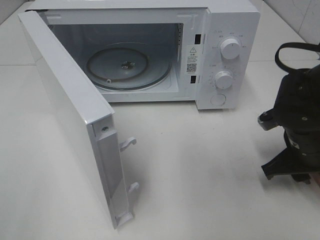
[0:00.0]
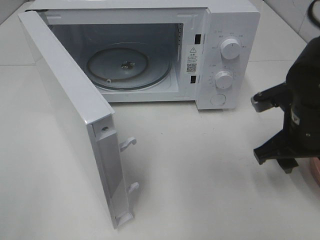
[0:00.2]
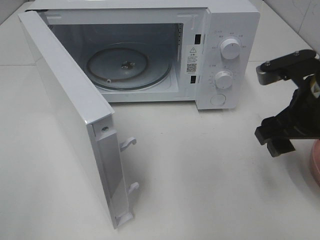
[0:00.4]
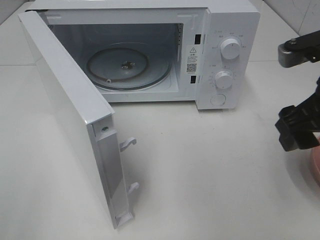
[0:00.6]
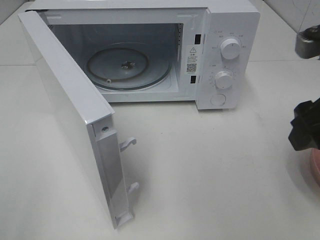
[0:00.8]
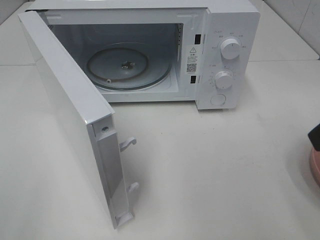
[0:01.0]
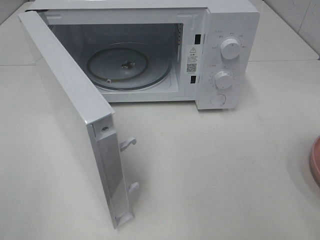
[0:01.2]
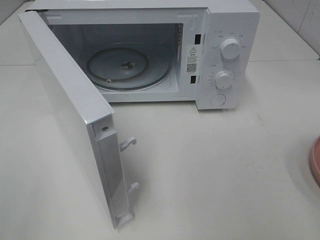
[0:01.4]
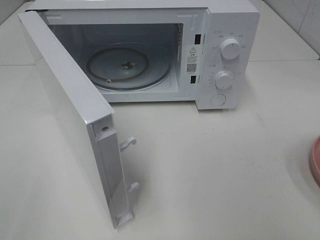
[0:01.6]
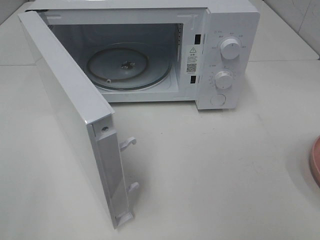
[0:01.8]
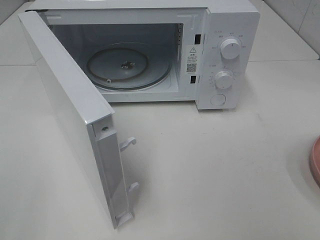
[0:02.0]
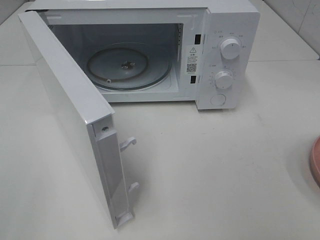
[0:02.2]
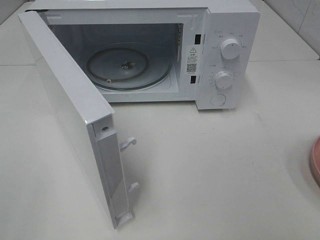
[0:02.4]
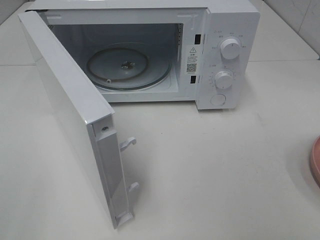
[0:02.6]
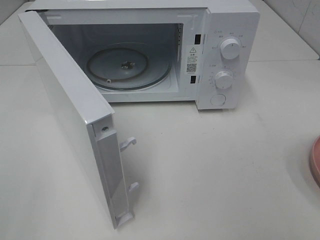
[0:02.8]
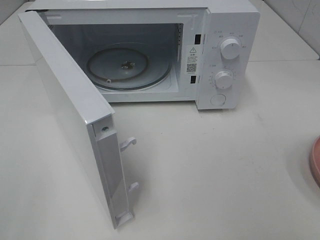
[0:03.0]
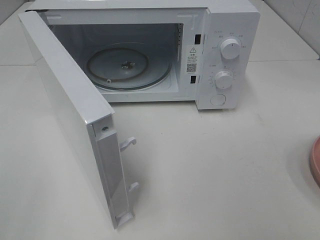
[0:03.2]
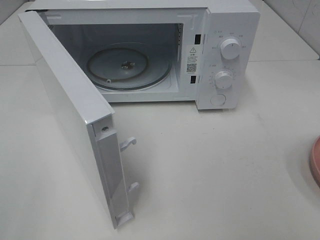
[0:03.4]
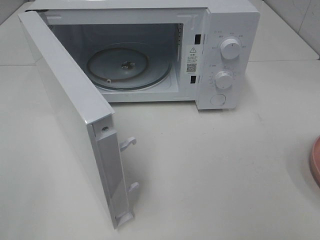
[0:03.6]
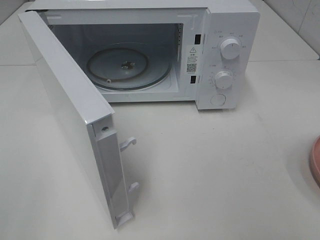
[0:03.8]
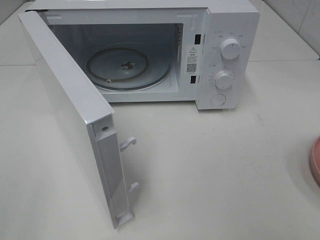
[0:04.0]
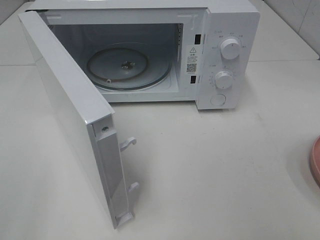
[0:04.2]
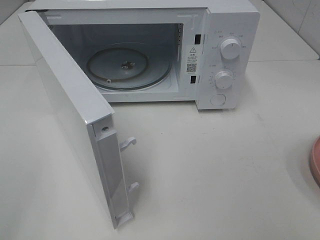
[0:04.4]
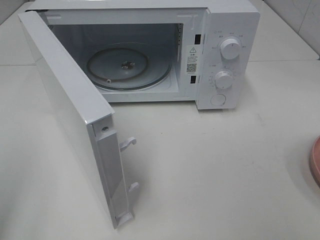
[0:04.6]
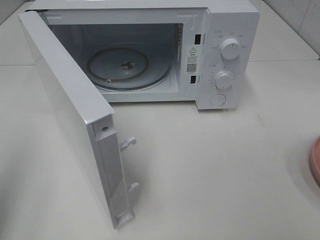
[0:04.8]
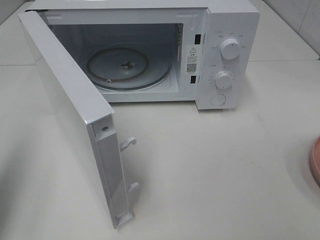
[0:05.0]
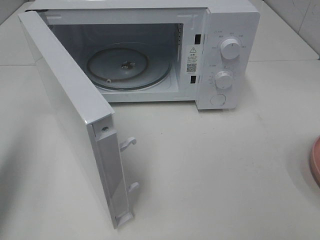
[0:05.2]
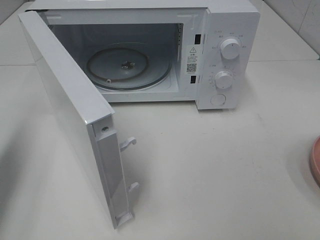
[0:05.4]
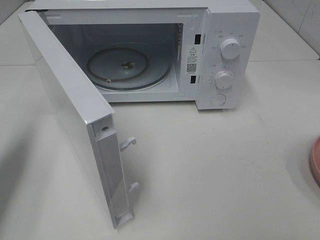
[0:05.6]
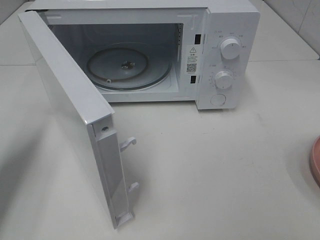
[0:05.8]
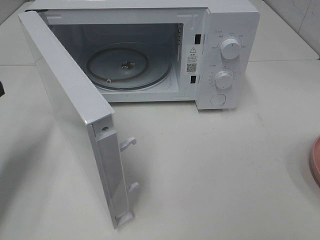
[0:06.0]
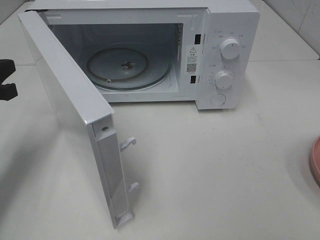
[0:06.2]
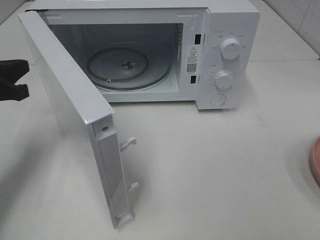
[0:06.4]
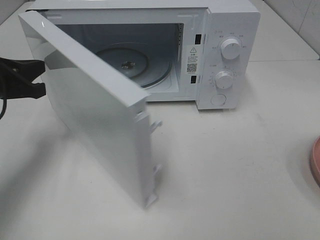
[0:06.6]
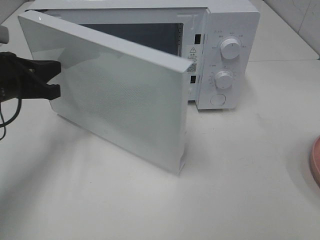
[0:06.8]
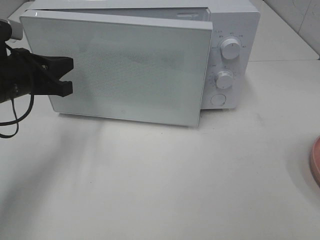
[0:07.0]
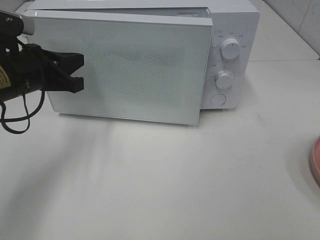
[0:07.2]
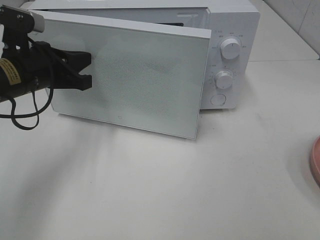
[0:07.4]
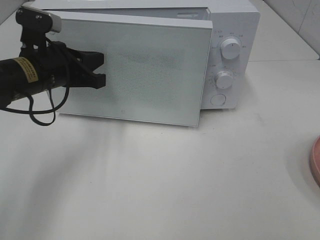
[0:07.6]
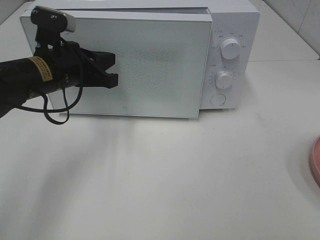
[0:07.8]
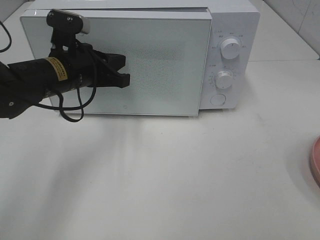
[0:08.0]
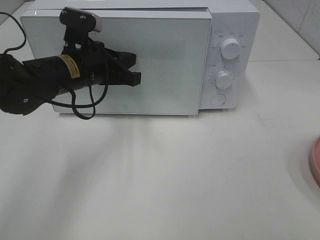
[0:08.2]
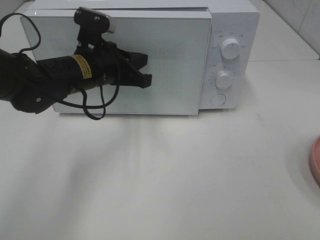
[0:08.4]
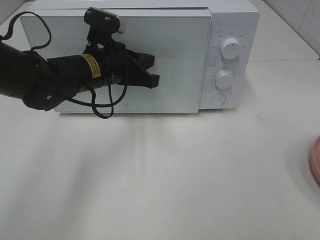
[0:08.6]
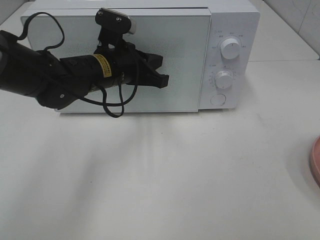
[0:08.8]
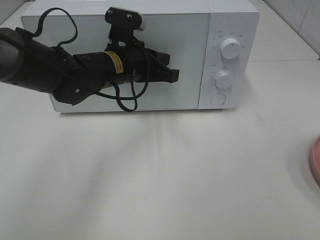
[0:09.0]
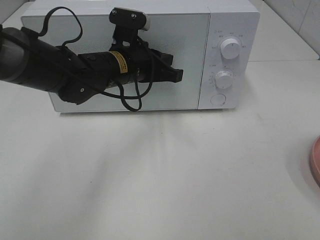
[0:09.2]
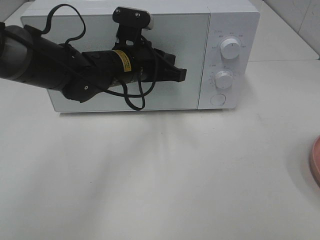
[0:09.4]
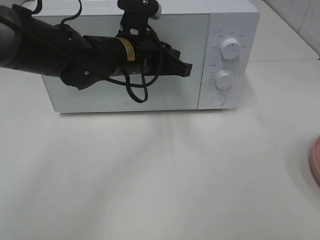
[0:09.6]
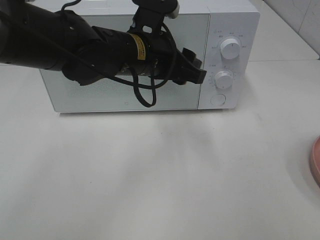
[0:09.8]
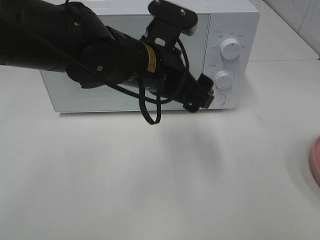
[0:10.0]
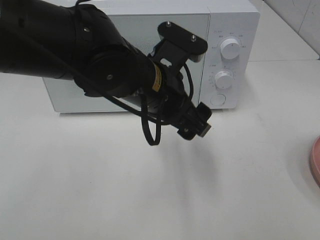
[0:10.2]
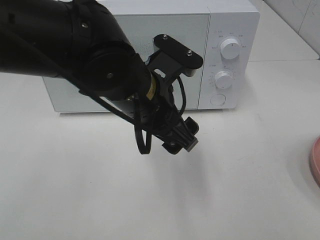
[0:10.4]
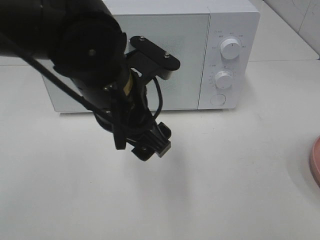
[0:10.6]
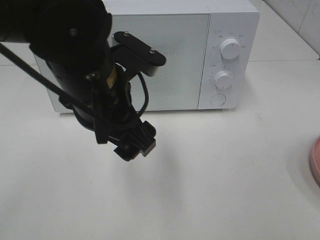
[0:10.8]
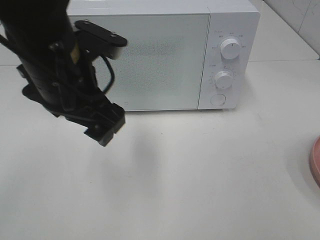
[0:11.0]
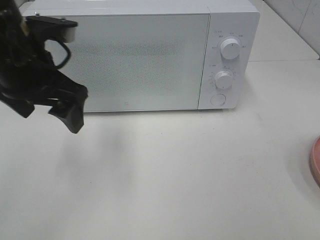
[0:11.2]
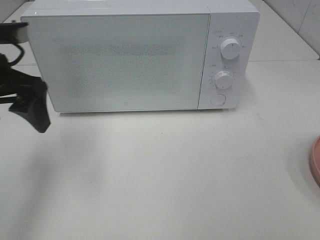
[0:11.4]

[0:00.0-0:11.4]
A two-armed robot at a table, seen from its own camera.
Task of the whole recording: Heat the burger.
Step, 0:00.2 to 0:09.6: Left hand: close the microwave door.
0:00.0 to 0:01.4: The right gripper shifts roughly 30 cm upward and backward.
0:04.2 to 0:05.6: The left gripper heads forward, covering some 20 cm, and closes.
0:05.6 to 0:07.2: The left gripper moves to the right, forward and downward, approximately 15 cm.
0:07.2 to 0:08.6: The left gripper moves to the right, roughly 10 cm.
0:08.6 to 0:10.0: The left gripper travels to the right and backward by some 10 cm, and opens its fingers.
0:10.0 to 0:11.4: The left gripper is displaced to the left by about 25 cm.

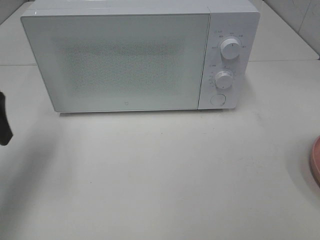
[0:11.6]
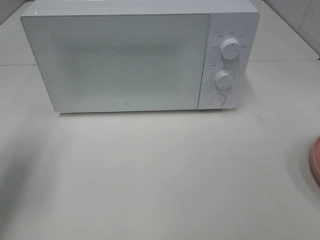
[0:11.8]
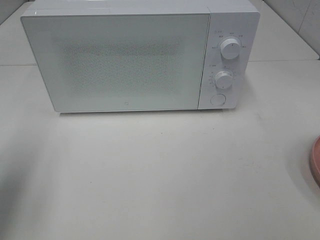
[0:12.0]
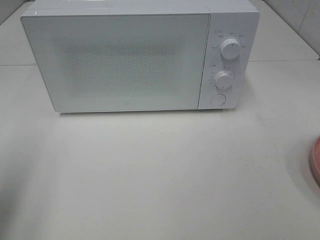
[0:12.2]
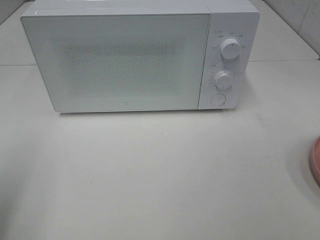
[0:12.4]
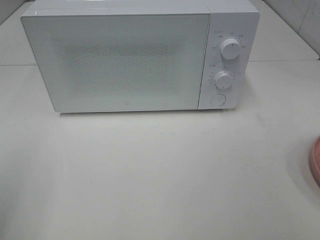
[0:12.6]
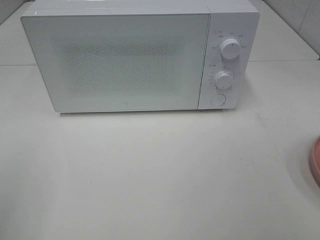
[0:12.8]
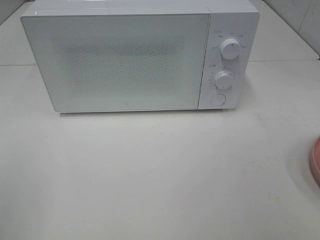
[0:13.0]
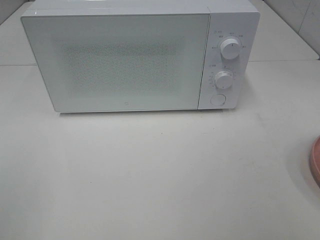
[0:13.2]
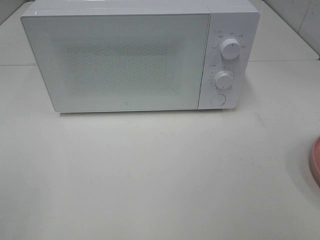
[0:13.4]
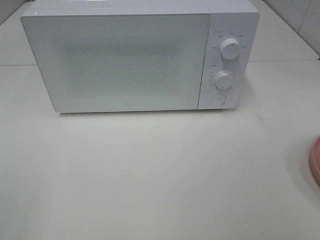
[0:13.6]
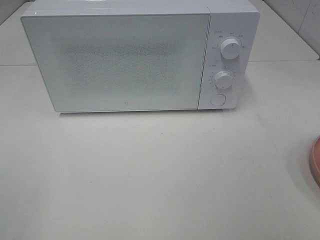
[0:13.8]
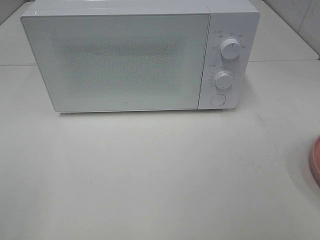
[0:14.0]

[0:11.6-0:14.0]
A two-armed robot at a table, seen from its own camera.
Task of the whole recording: Heat the burger.
0:11.6 to 0:12.8: The left gripper shifts about 20 cm backward.

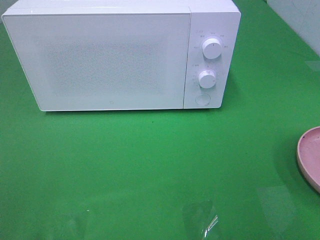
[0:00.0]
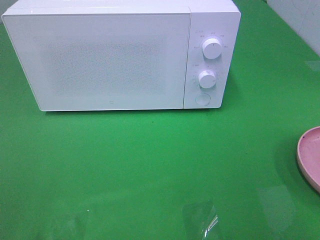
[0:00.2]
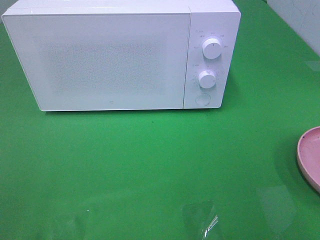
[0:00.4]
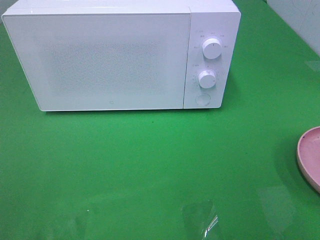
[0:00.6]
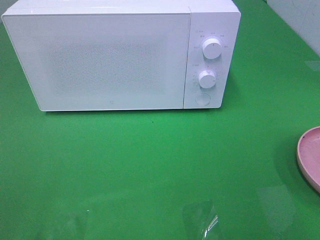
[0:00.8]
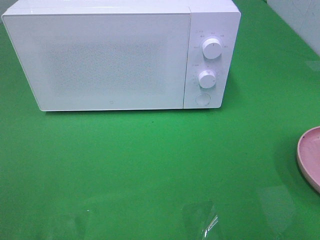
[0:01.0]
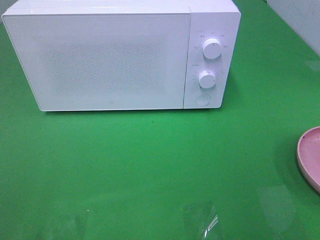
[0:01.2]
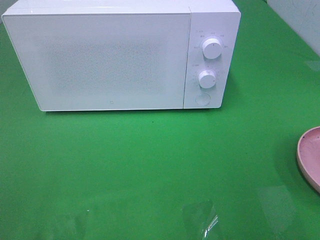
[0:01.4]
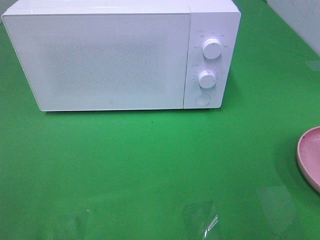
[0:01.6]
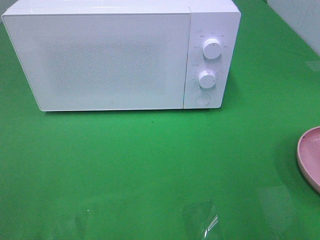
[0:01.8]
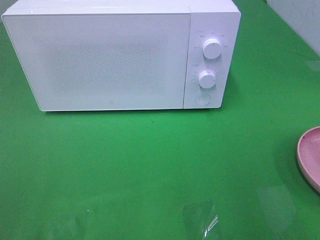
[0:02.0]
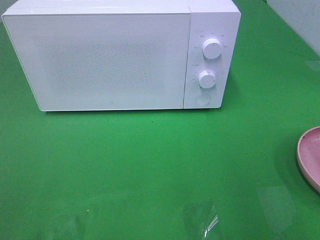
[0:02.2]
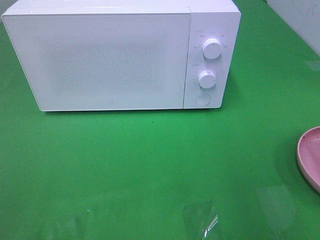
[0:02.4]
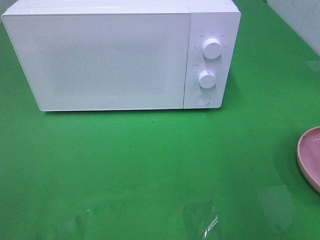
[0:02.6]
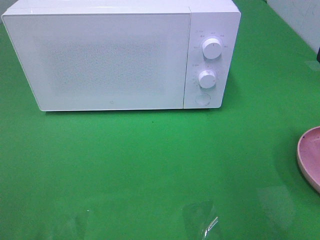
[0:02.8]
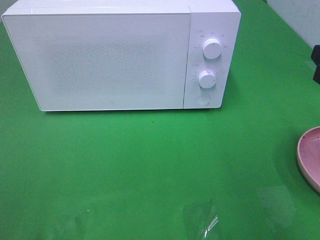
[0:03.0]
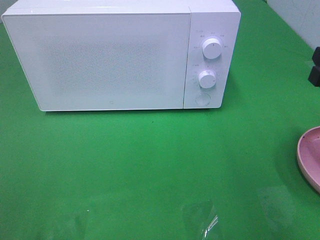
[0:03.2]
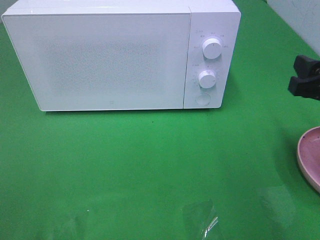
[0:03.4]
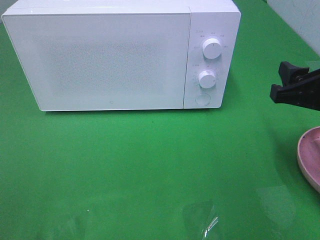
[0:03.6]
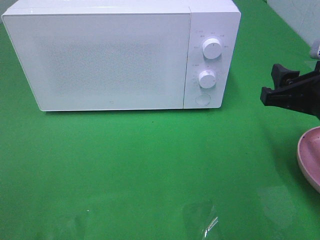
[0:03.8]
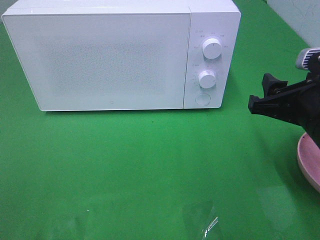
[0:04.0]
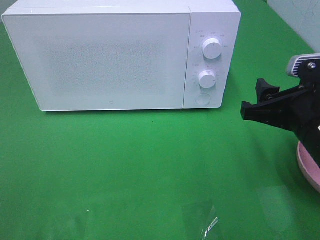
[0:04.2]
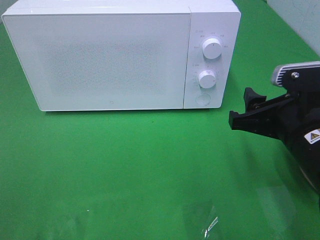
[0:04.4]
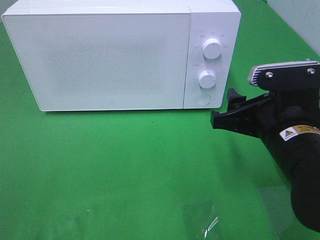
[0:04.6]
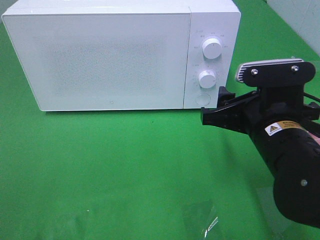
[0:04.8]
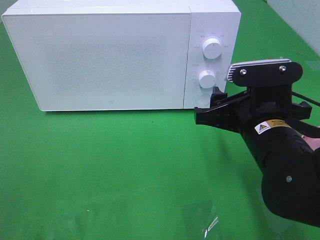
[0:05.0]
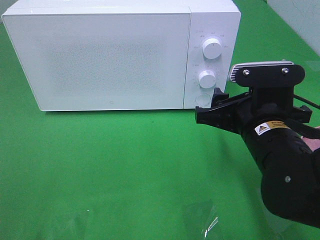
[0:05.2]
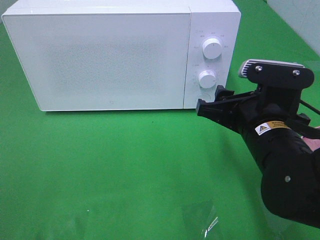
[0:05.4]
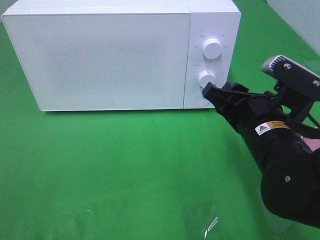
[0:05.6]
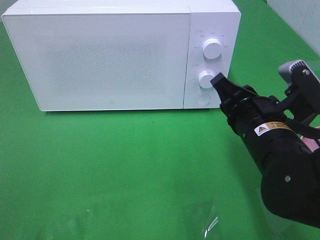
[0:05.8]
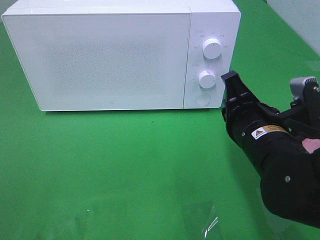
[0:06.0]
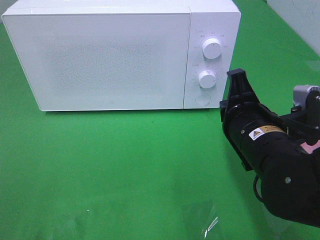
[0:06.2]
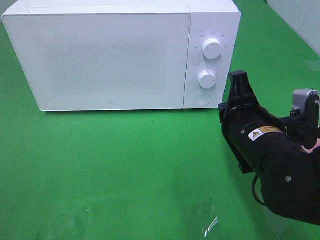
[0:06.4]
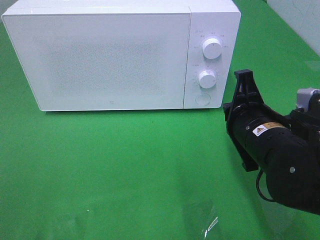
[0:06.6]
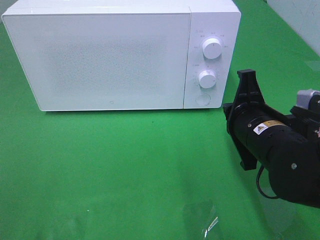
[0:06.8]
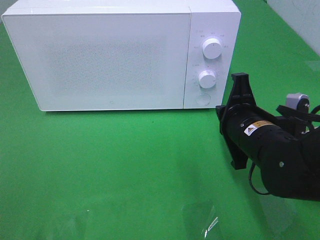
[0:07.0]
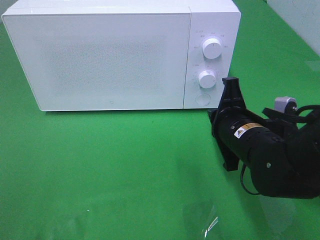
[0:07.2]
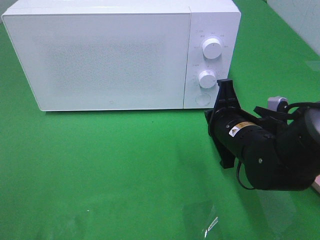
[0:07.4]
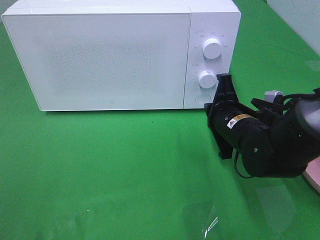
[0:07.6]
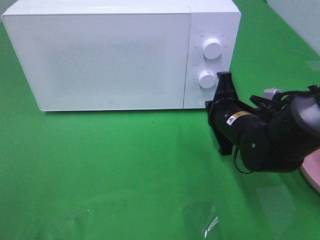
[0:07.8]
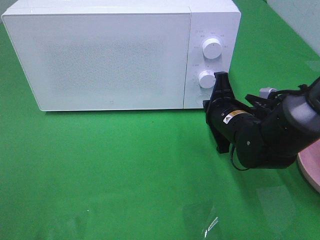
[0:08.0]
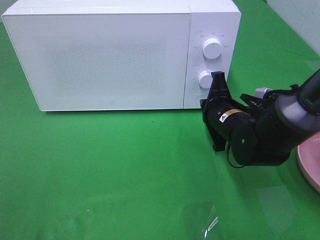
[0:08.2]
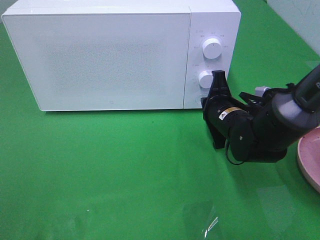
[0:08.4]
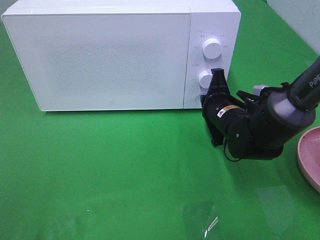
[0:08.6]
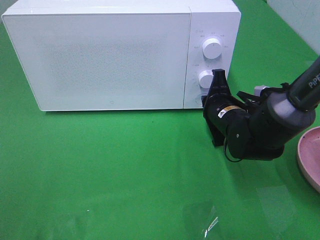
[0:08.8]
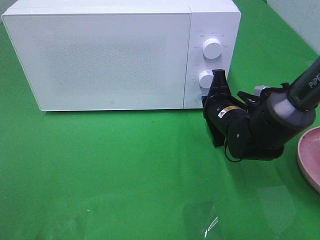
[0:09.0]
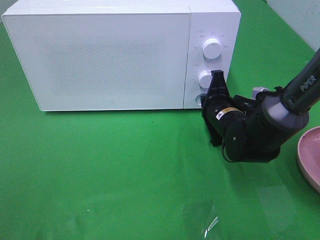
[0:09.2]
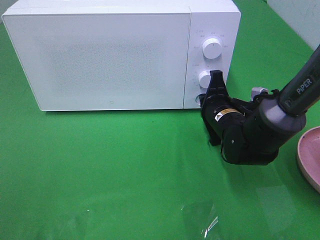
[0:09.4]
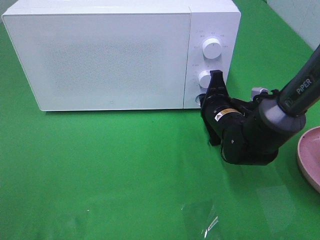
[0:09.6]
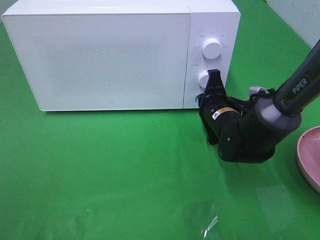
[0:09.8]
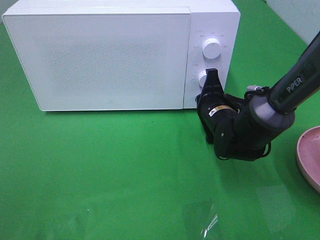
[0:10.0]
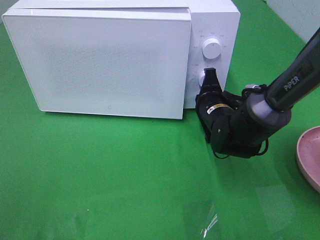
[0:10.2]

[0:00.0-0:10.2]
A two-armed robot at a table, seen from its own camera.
Task of the whole recording: Heat the burger.
0:01.4 to 0:03.0: The right gripper travels forward by roughly 15 cm.
0:03.0 to 0:04.4: The right gripper moves to the left and downward, some 10 cm.
0:04.4 to 0:05.8: The right gripper moves approximately 5 cm, and closes its fingers.
0:05.8 to 0:07.2: The right gripper ends up roughly 5 cm from where it was.
0:07.2 to 0:08.8: The right gripper is displaced forward by approximately 10 cm.
0:08.8 to 0:10.2: There are only small adjustments of the grippers.
